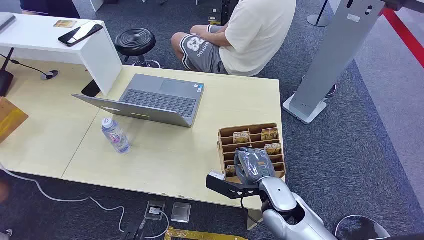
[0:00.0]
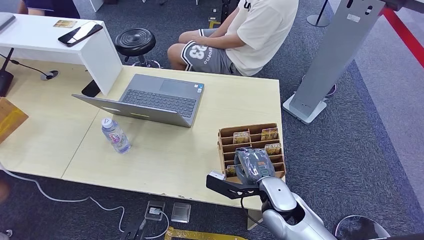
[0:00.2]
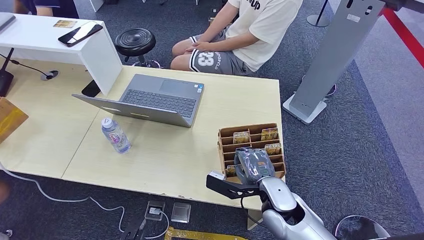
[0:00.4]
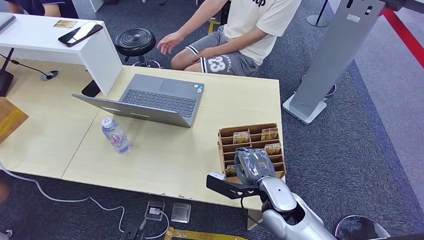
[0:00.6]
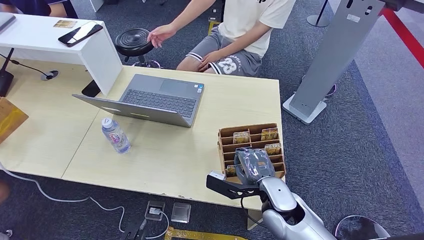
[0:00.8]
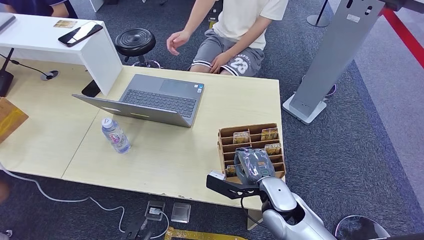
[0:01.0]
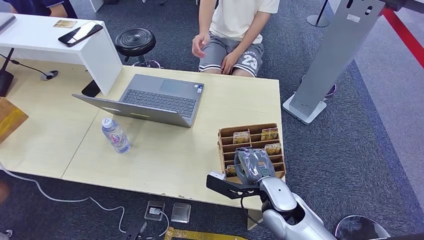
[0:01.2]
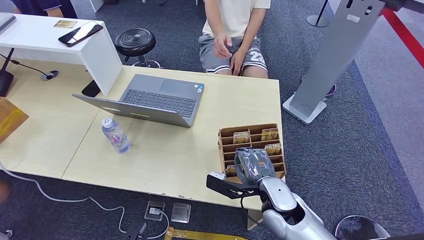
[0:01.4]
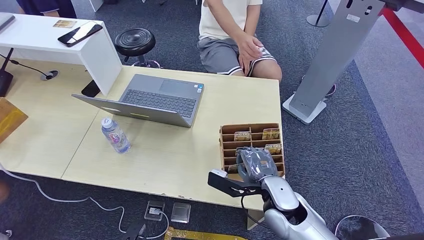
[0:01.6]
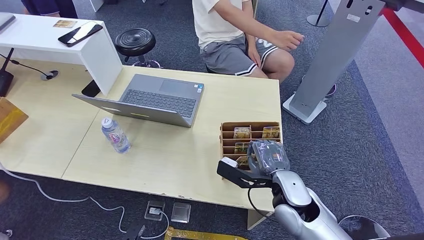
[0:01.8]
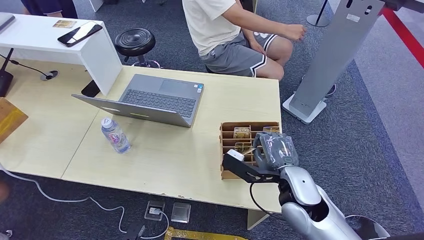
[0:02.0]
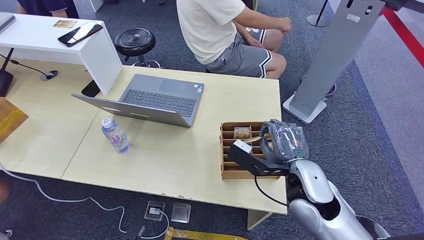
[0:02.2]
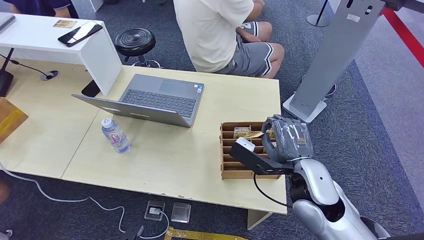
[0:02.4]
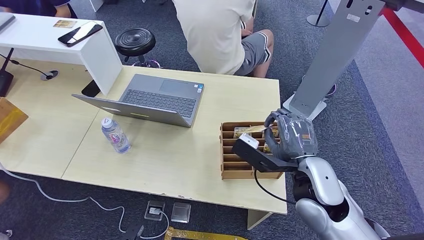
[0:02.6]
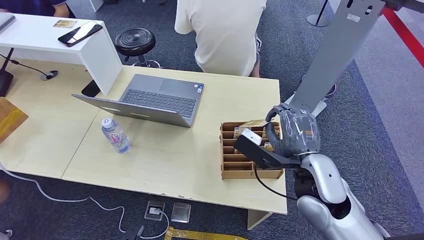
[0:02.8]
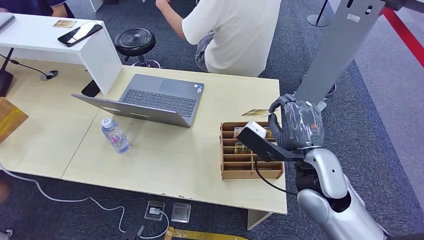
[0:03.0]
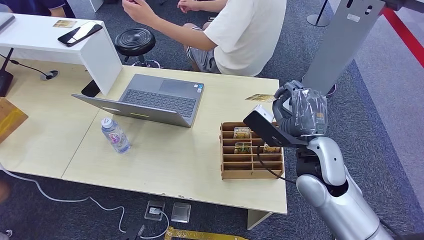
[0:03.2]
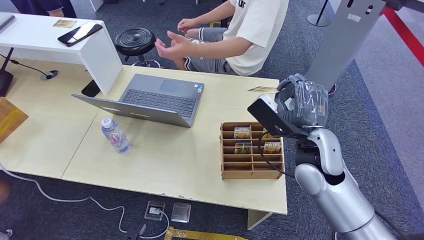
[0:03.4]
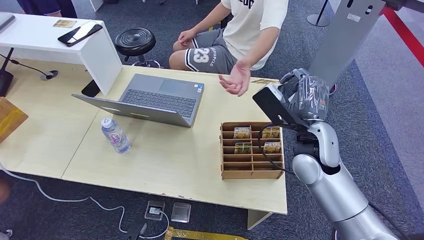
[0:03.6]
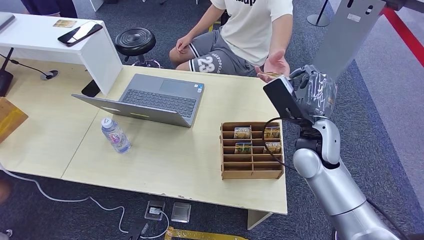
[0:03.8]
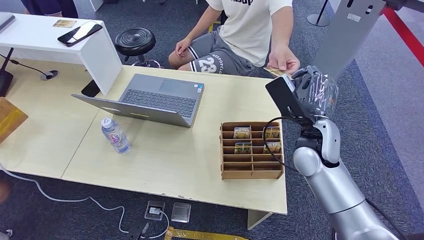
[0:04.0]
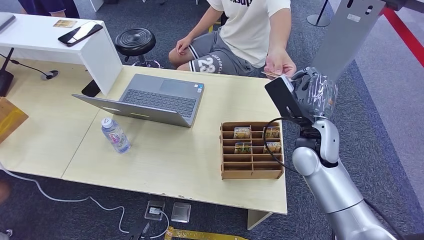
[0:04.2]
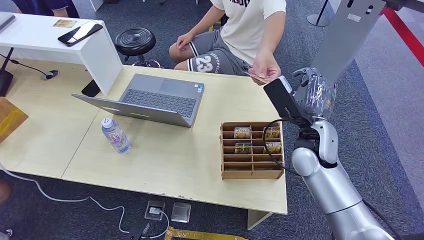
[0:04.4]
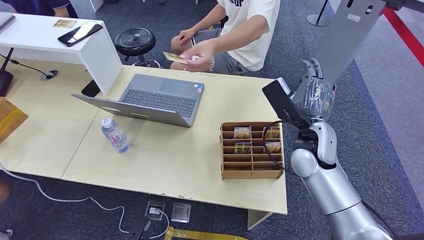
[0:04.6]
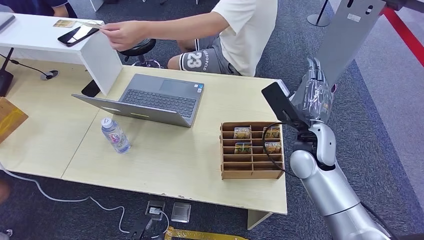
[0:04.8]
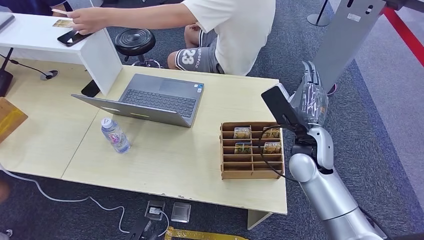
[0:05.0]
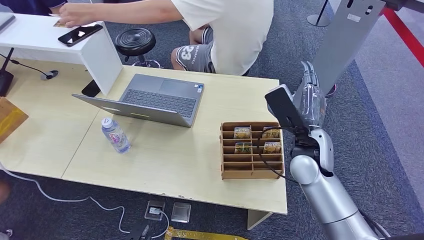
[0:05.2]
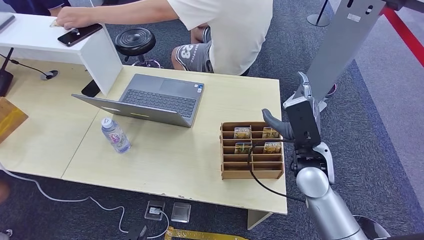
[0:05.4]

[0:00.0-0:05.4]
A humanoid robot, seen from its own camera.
Step, 0:00.0 to 0:03.2: Pick up the room card from the card holder.
Step, 0:03.6 to 0:05.4: Hand the room card to the target.
0:01.4 to 0:02.8: The right hand travels upward by roughly 10 cm.
0:02.8 to 0:04.0: The right hand moves forward, approximately 10 cm.
0:04.0 to 0:05.4: The right hand changes place by roughly 5 cm.
